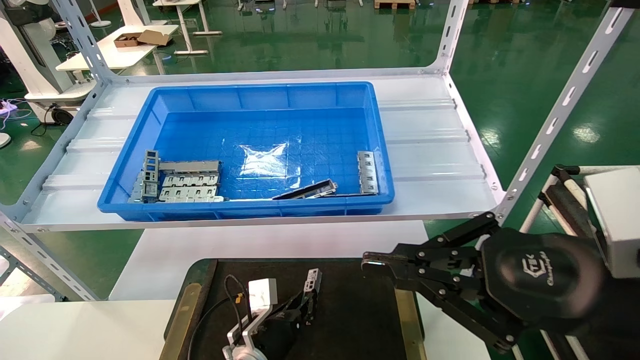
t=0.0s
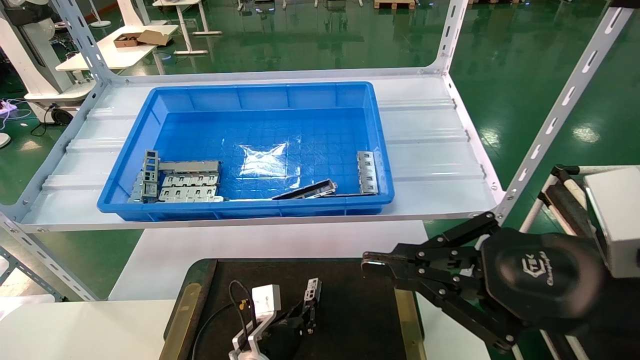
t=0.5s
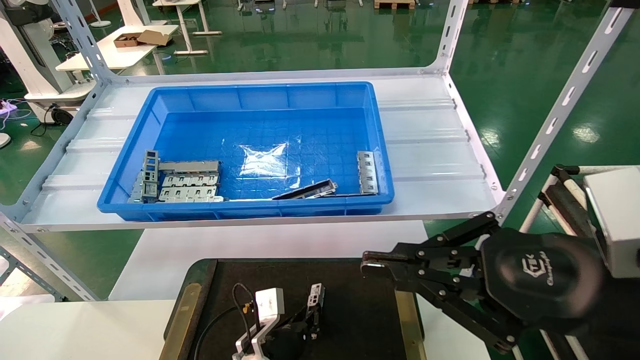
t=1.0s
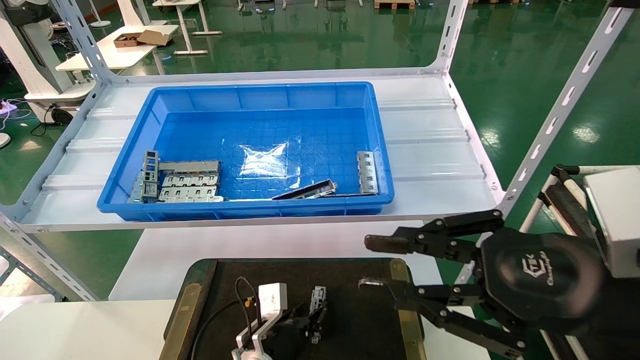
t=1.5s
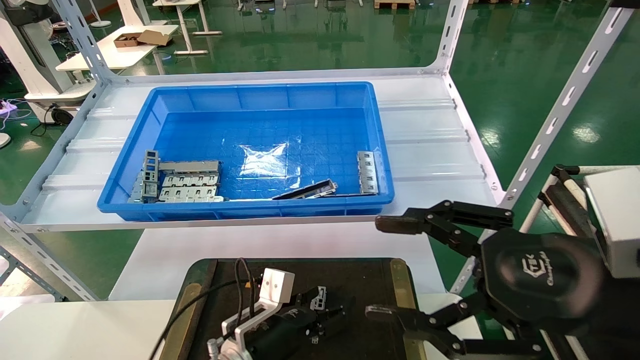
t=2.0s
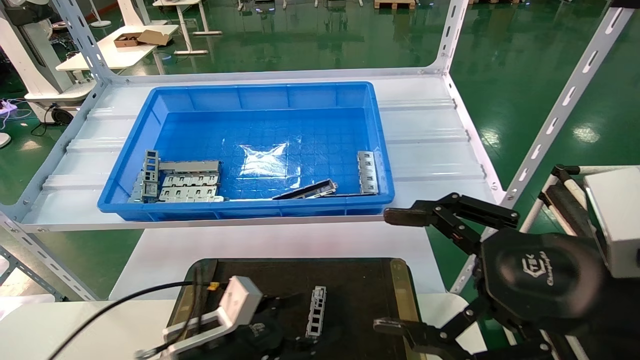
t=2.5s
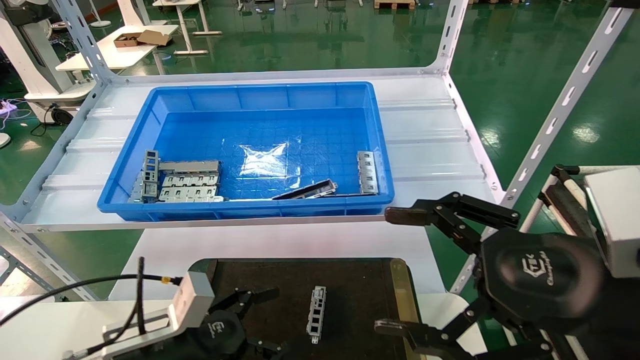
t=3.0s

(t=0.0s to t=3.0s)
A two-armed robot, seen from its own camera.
Task of the whole recording: Grasp the part with one hand and place it on the black container.
t=0.0s - t=1.5s: There are only small adjustments of the grippers.
t=1.5s - t=3.0s: The right gripper opens its fingers. The left gripper goes approximately 20 cm to the left, upward and backward, and opens.
